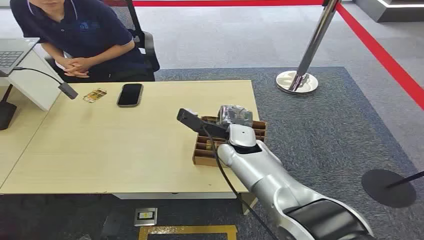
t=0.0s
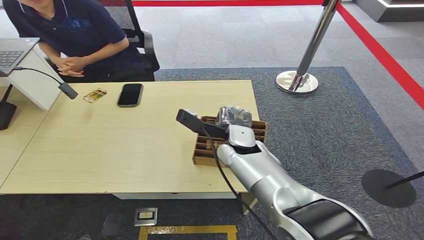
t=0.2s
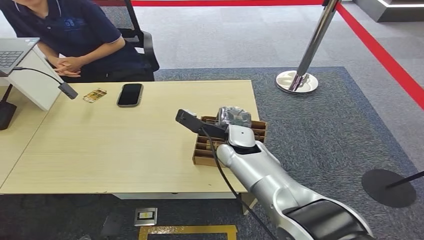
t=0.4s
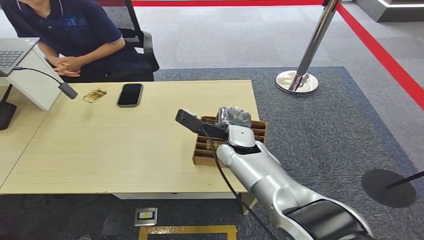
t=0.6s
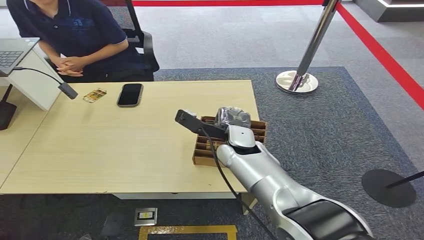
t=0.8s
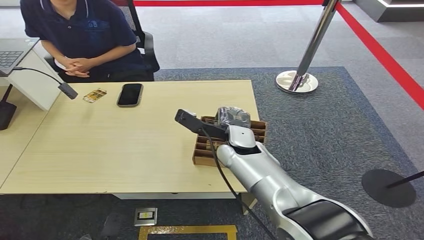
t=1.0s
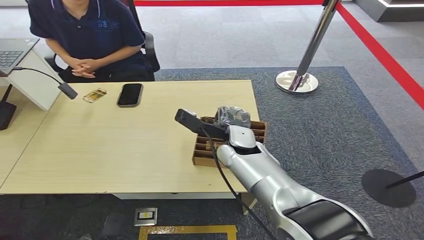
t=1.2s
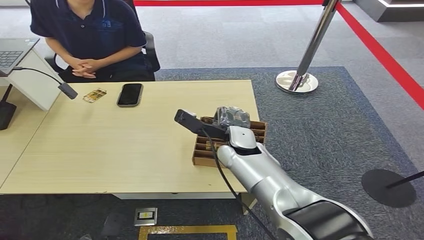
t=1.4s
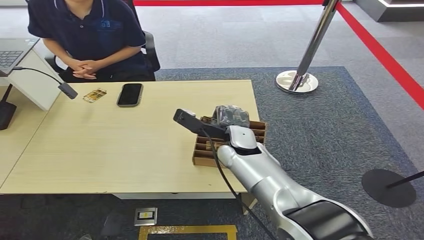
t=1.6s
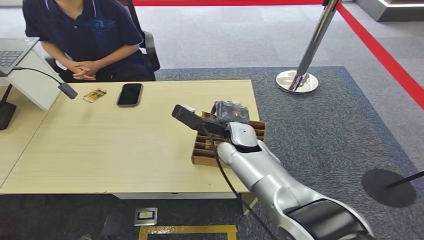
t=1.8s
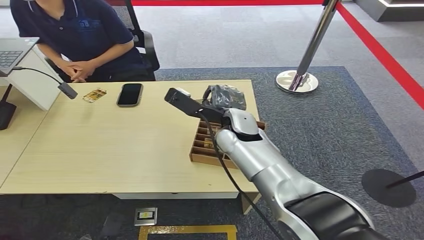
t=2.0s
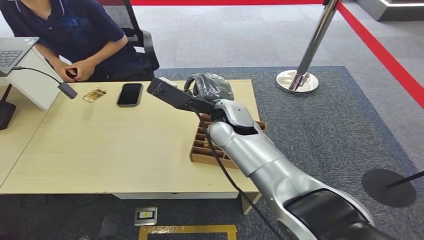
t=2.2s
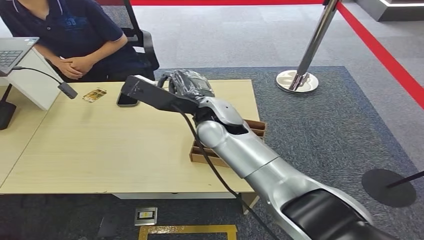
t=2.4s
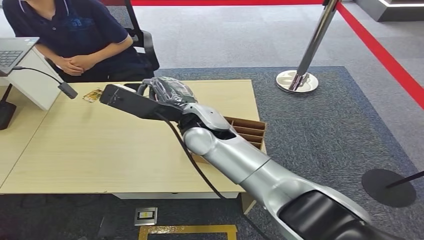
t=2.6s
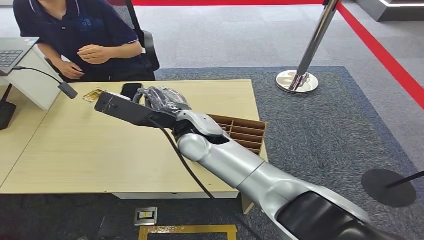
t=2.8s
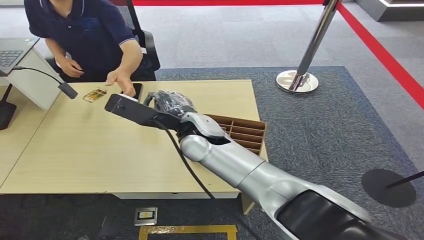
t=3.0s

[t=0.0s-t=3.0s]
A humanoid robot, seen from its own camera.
Step, t=0.0s to t=2.0s: Pick up the key card from the card box.
Step, t=2.4s to t=3.0s: Hand the key card to the target.
t=1.6s to t=3.0s: The right hand moves upward and to the left, about 10 cm.
